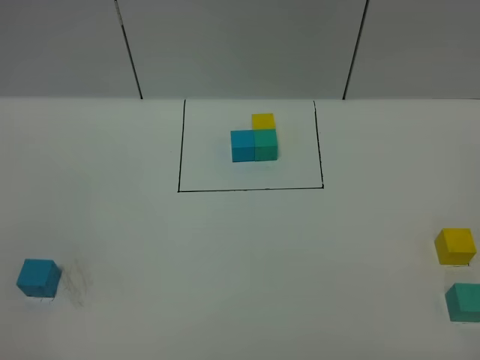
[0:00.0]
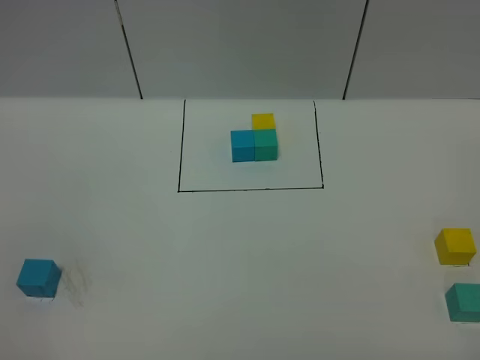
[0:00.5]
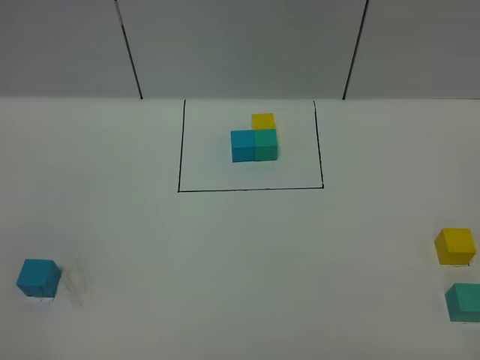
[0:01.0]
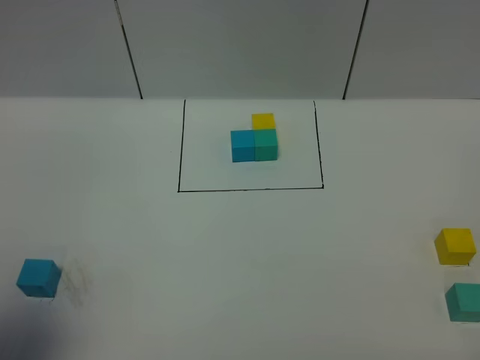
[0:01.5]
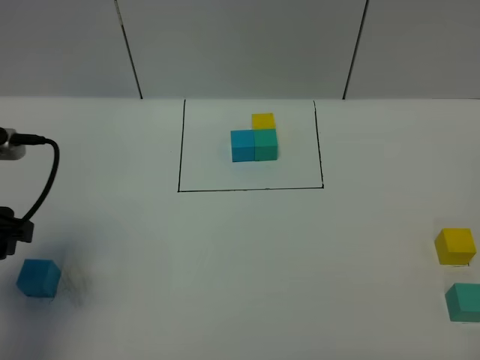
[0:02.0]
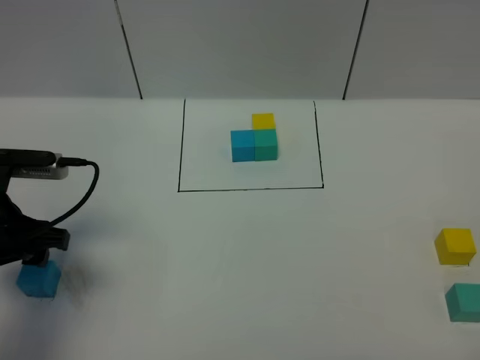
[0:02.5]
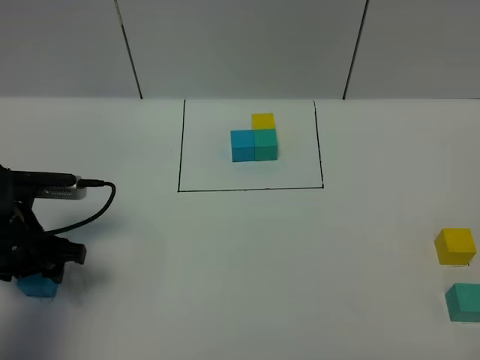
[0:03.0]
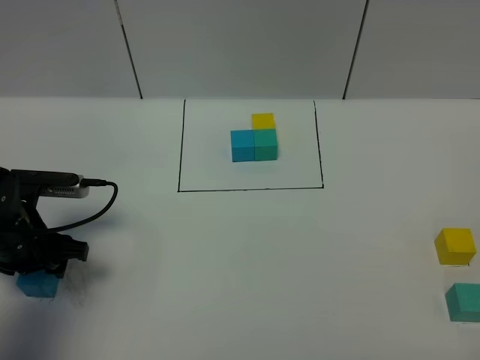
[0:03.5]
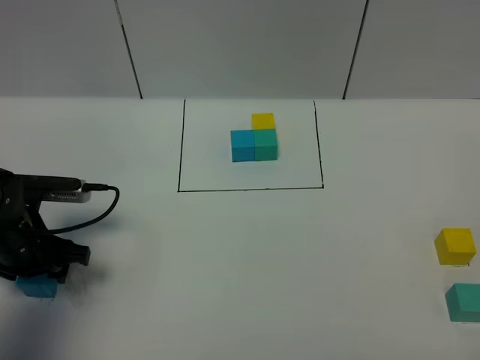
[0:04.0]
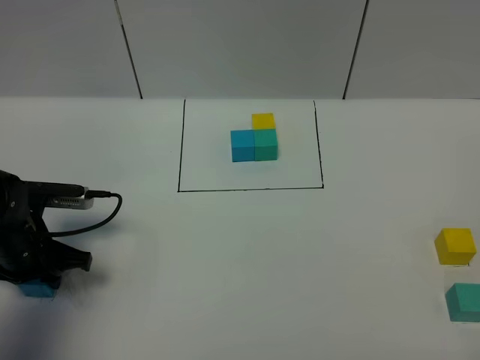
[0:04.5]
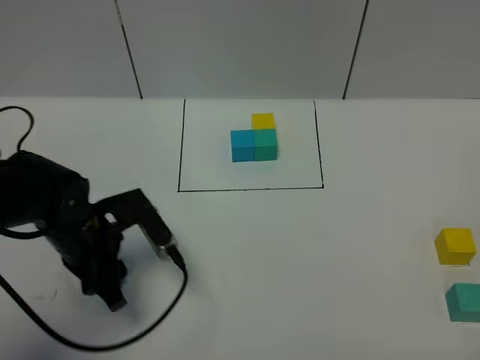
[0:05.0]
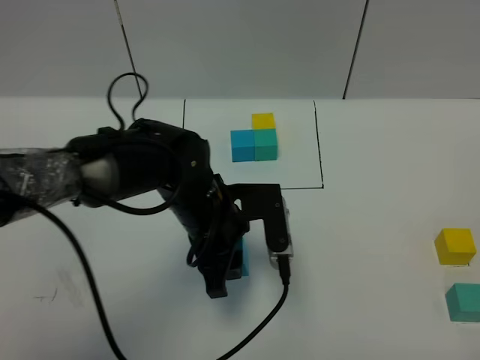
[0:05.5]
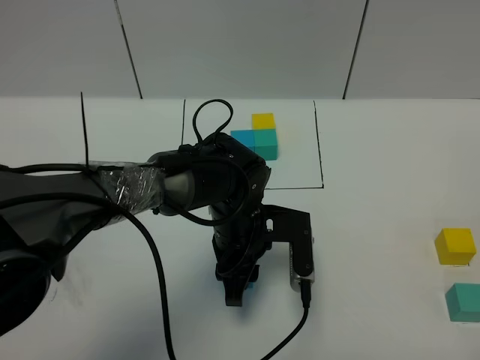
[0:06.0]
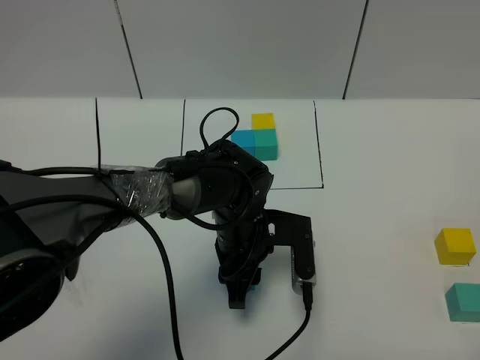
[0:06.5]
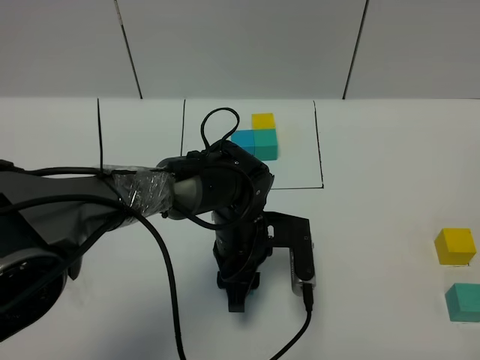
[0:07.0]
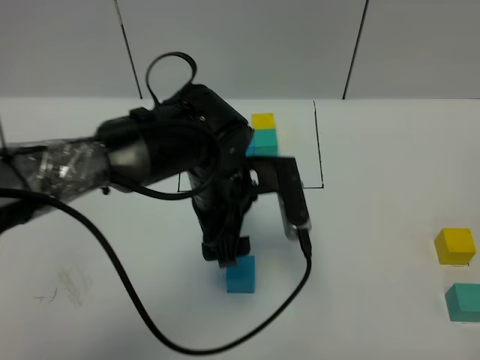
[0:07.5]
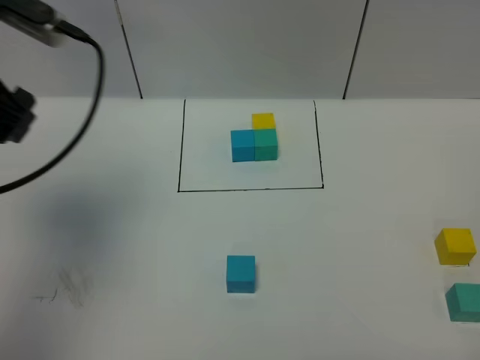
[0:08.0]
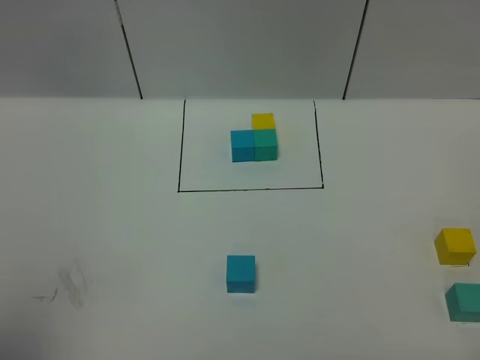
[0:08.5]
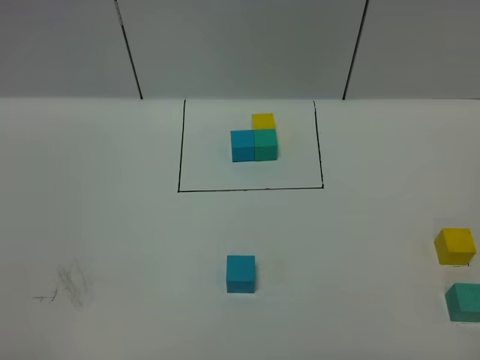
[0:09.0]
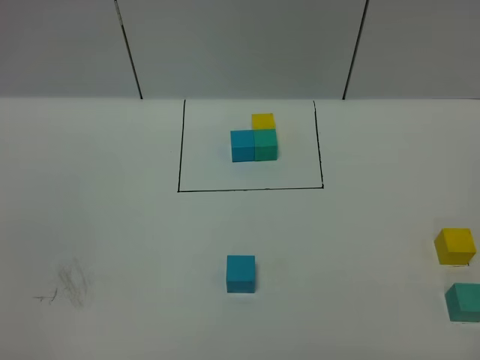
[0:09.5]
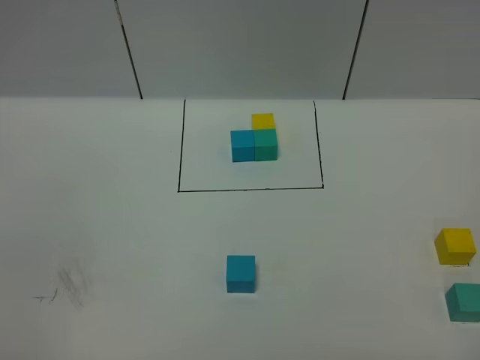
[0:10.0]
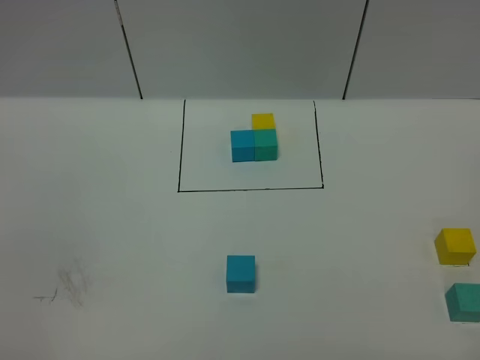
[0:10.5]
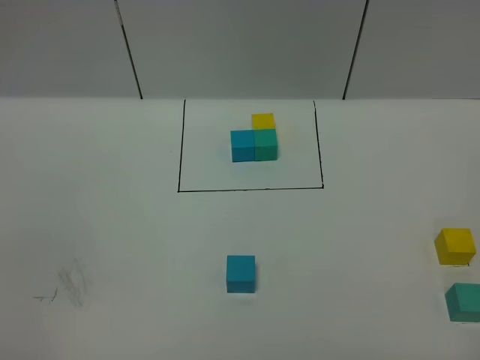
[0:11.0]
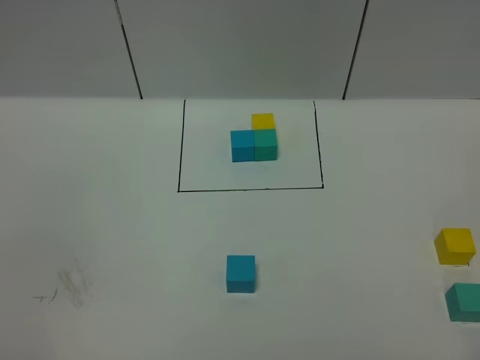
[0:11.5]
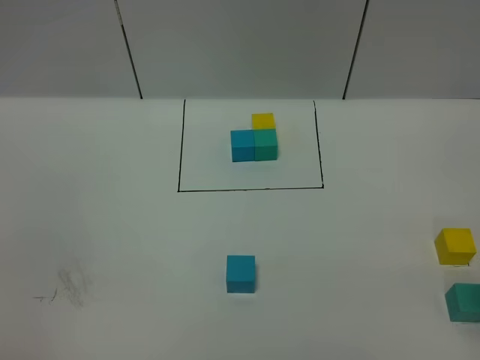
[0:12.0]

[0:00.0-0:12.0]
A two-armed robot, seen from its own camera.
Task of the whole recording: According to the building block template in front, assemble the scattered blocks together.
Step, 0:02.0 to 0:07.0: Put the blue cube in the center of the table.
0:00.0 to 0:02.0: The left gripper heads forward, covering about 25 cm.
0:02.0 to 0:04.0: The left gripper shifts about 15 cm downward and forward.
0:04.0 to 0:06.0: The left gripper shifts some 25 cm to the right, and closes up.
0:06.0 to 0:08.0: The left gripper heads upward and to the left, covering approximately 35 cm, and opens up.
0:08.0 to 0:10.0: The left gripper is displaced backward by some 30 cm.

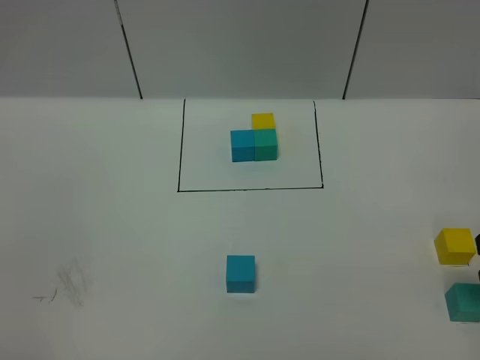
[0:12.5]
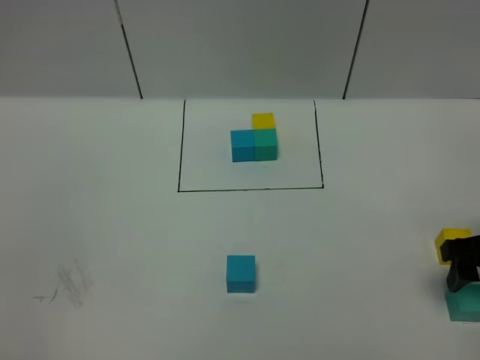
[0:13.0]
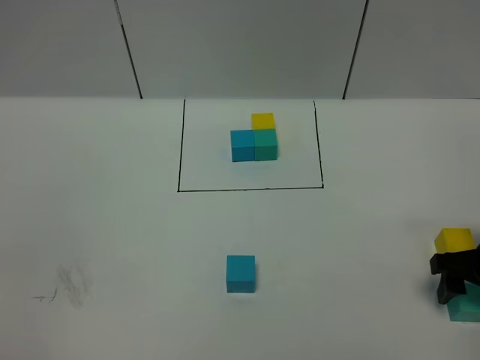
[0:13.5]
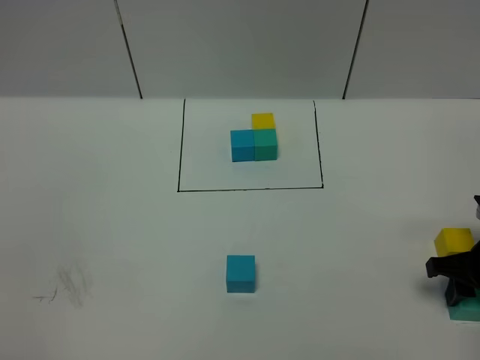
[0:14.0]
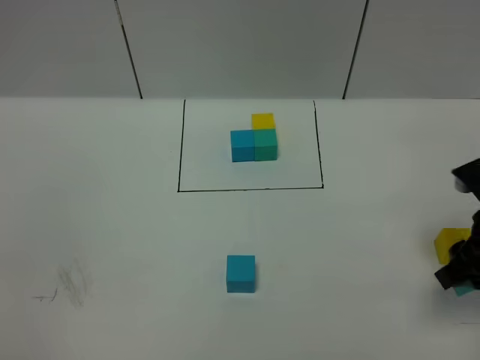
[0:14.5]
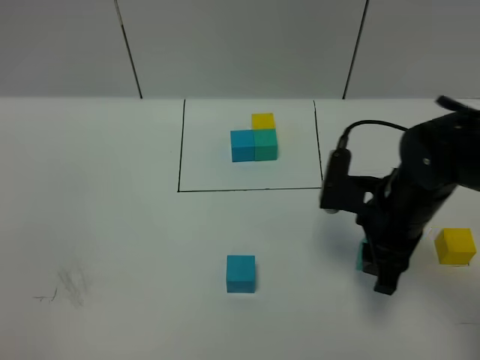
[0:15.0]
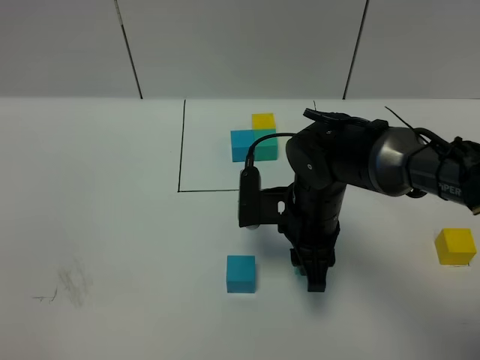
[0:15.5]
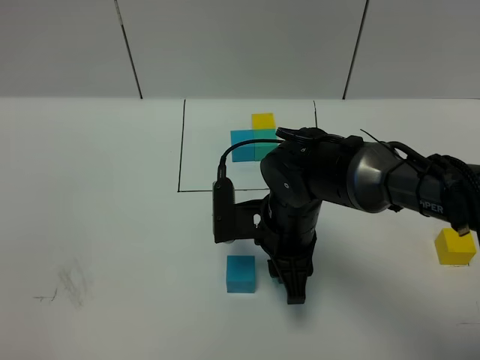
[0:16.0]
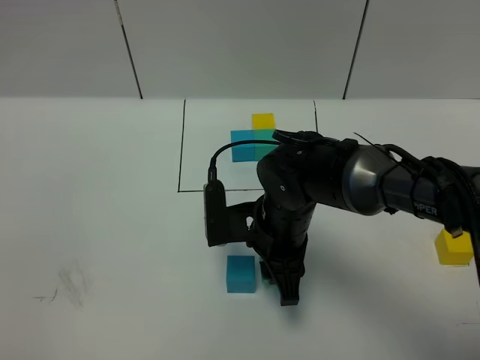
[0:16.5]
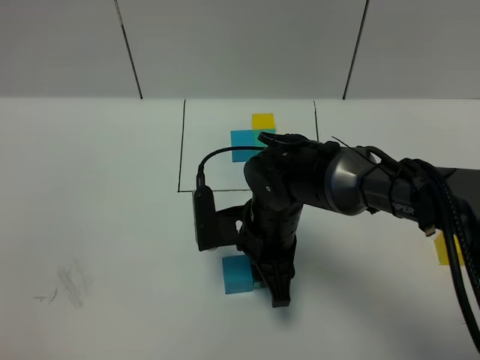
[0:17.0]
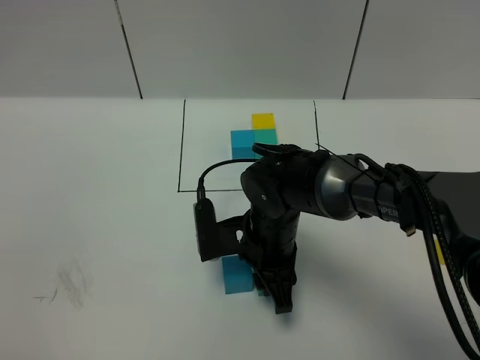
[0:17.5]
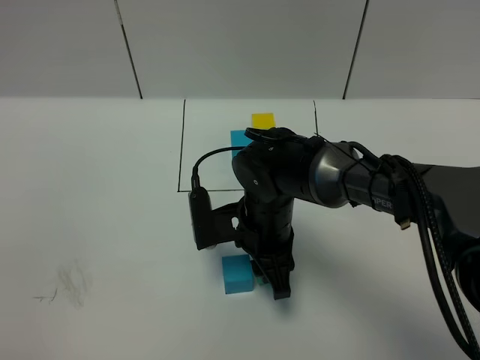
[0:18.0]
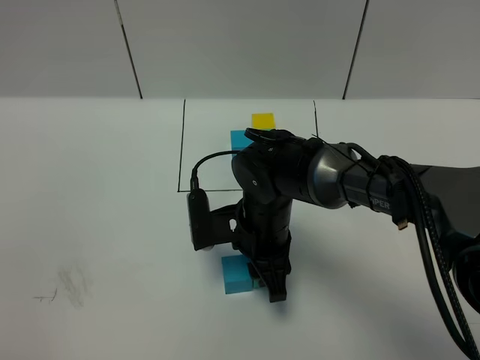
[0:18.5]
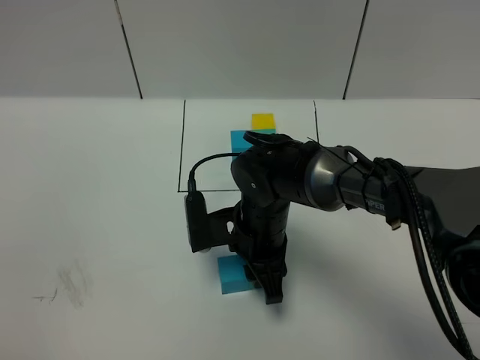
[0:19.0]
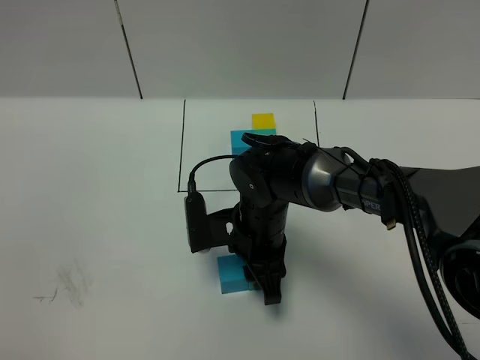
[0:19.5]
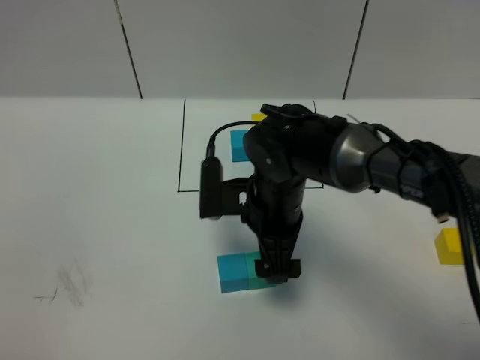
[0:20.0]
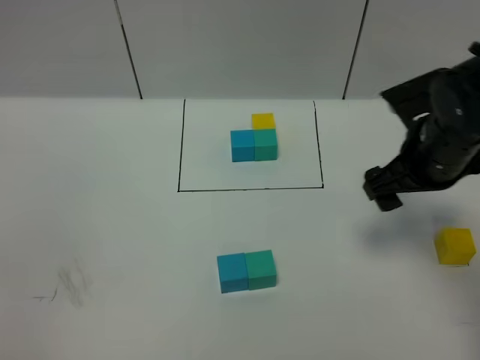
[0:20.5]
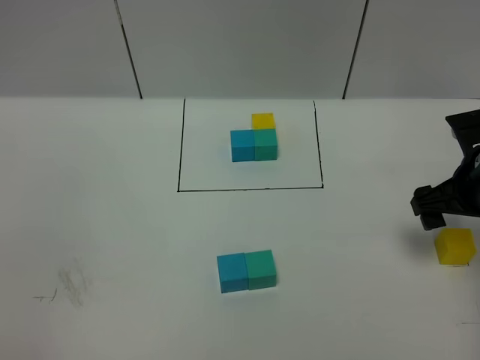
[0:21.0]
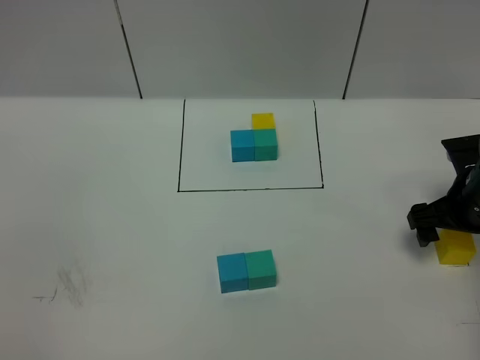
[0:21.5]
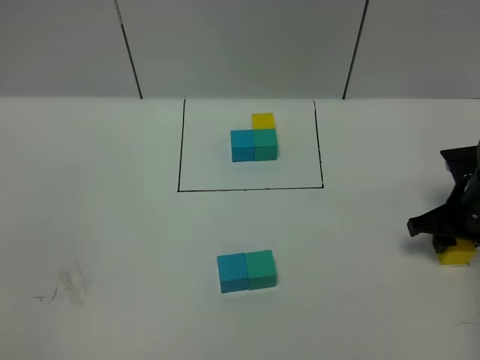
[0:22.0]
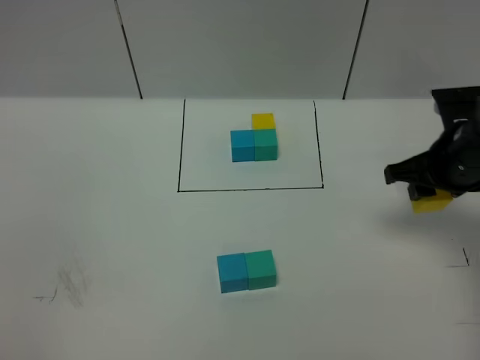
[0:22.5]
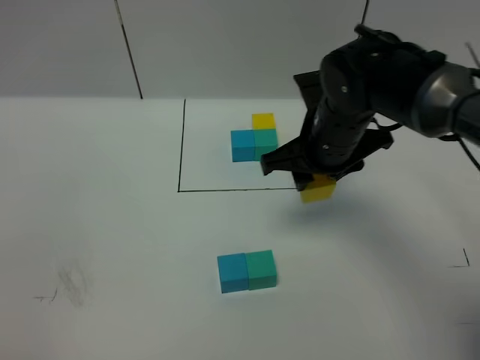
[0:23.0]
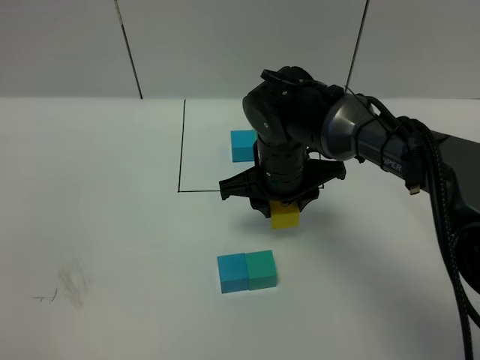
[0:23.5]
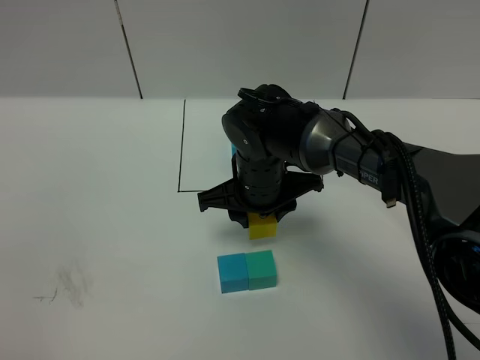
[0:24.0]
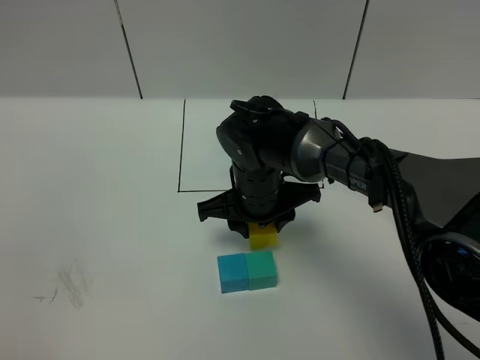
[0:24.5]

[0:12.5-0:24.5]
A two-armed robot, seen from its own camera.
Task of the whole recording: According to the building block template in front, assemble the scattered blocks together.
Step, 0:12.5 to 0:19.5: Put the green cube on the right of the blue cube.
0:12.5 to 0:14.5: The right gripper moves to the left, approximately 5 cm, moves some 10 cm downward and comes back, and closes its fingers.
0:14.5 to 0:16.5: The right gripper shifts roughly 25 cm to the left.
0:16.5 to 0:18.5: The grippers move only a little.
0:18.5 to 0:20.5: The right gripper shifts approximately 20 cm to the right and upward, and opens up.
0:20.5 to 0:22.5: The right gripper moves about 10 cm downward and comes back, and closes up.
0:22.5 to 0:24.5: The right gripper shifts roughly 25 cm to the left.

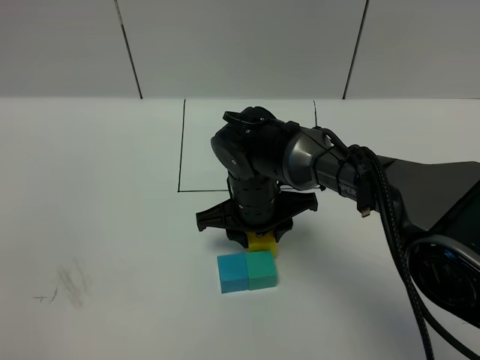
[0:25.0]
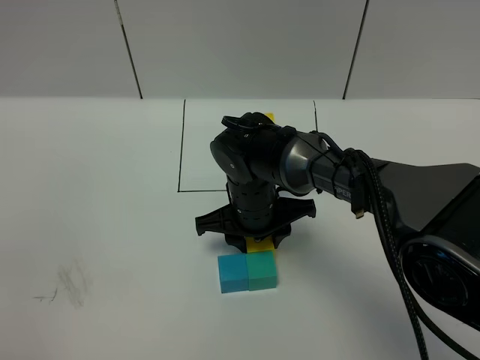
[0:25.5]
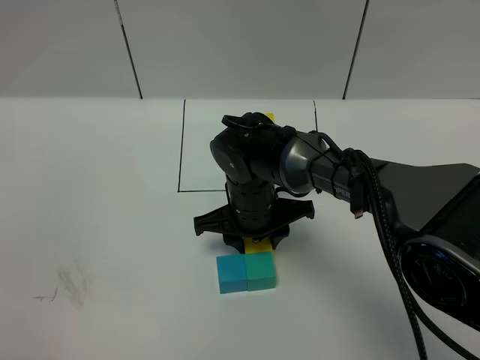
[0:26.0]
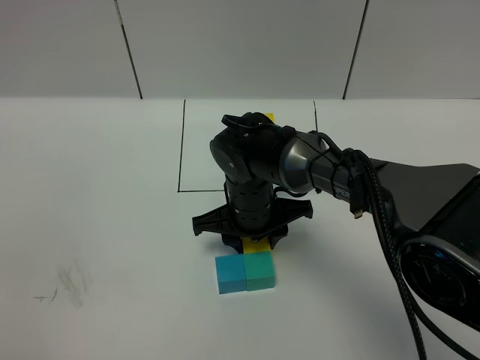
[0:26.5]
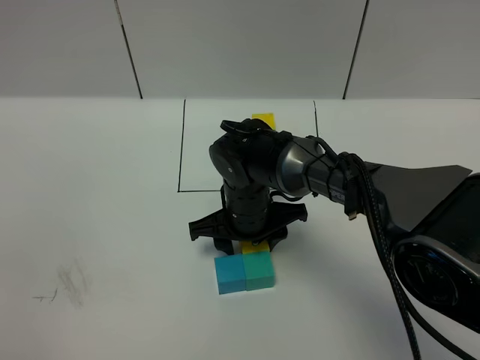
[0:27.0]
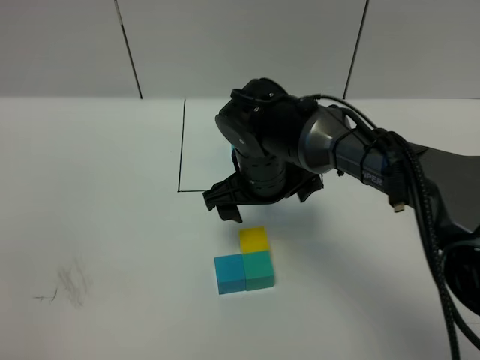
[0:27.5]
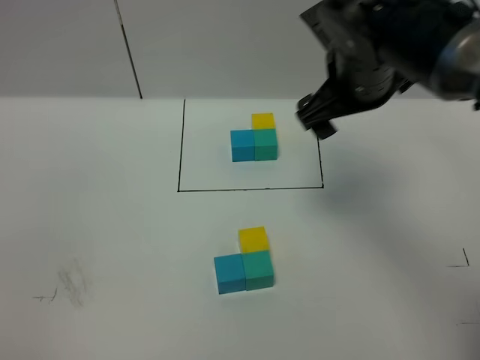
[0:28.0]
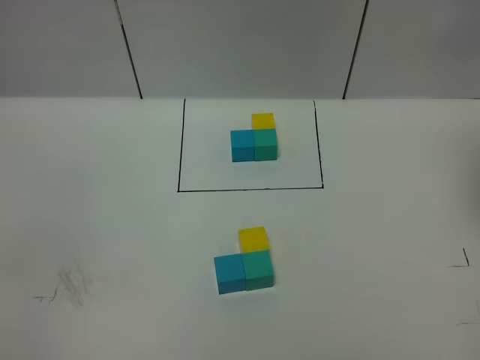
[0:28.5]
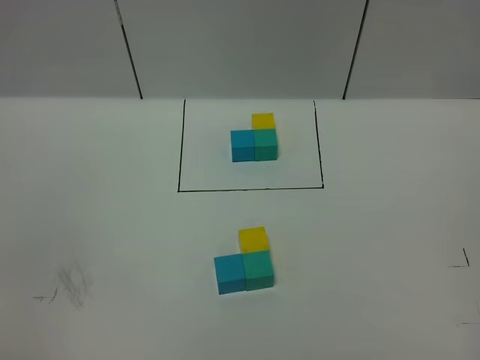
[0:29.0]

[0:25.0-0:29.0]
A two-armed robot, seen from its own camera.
Task of the whole recording: According to the building block template in front, assemble the scattered blocks together.
Step, 0:25.0 to 0:27.0: Put the yellow cube on the behind of the green cube.
0:25.0 to 0:27.0: The grippers stay close to where they were, moving slightly.
0:27.0 to 0:29.0: The right gripper is displaced to the right, upward and backward by about 50 cm, and opens its fingers.
